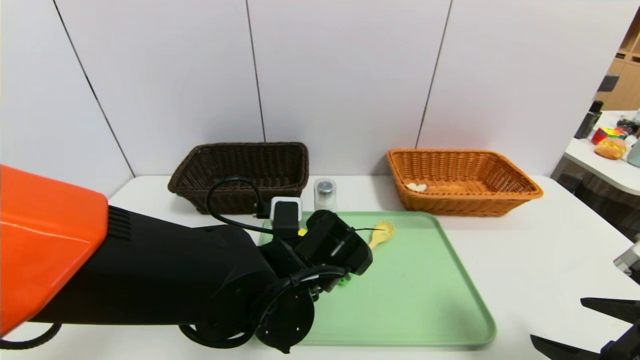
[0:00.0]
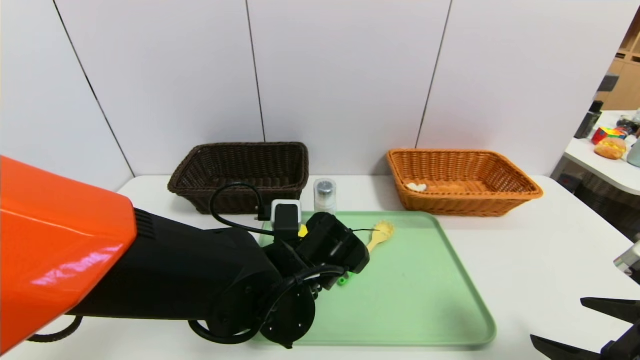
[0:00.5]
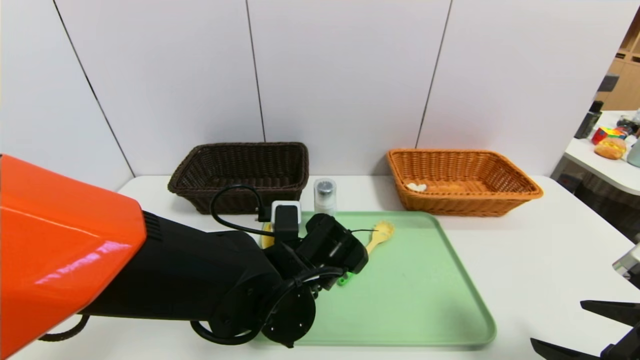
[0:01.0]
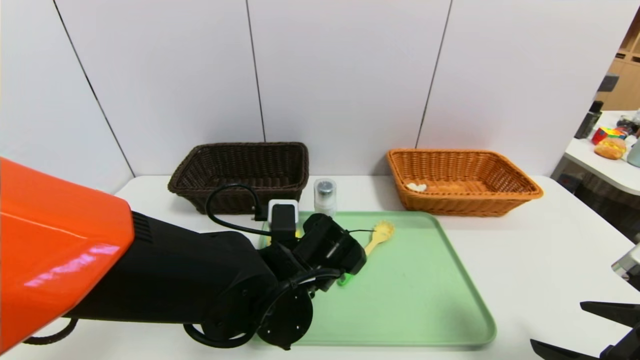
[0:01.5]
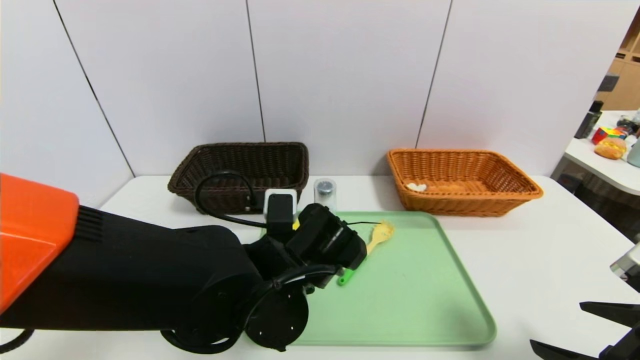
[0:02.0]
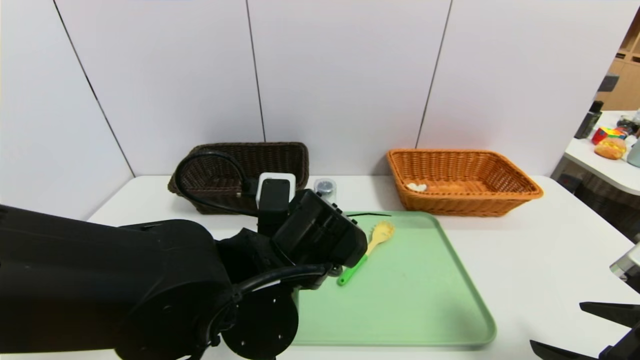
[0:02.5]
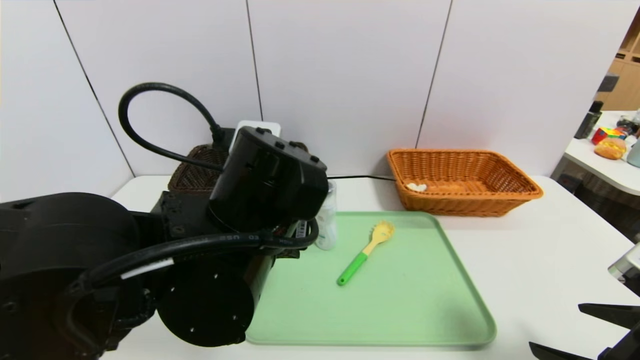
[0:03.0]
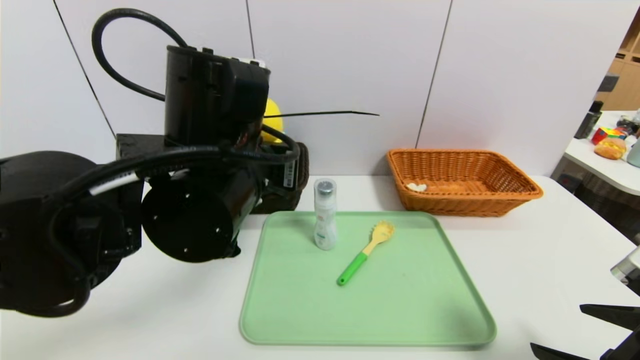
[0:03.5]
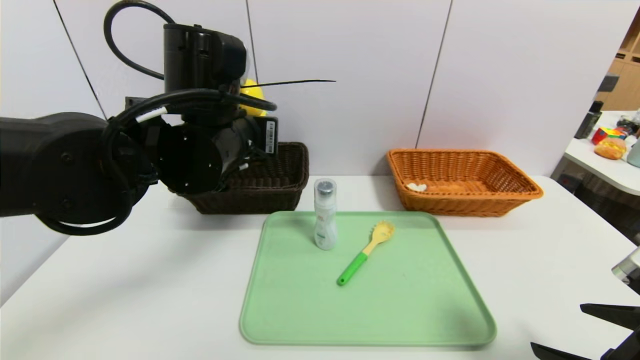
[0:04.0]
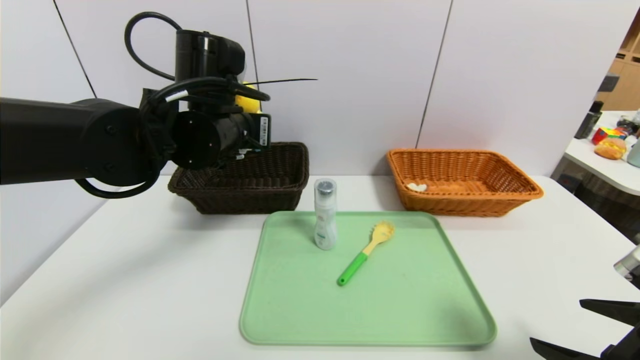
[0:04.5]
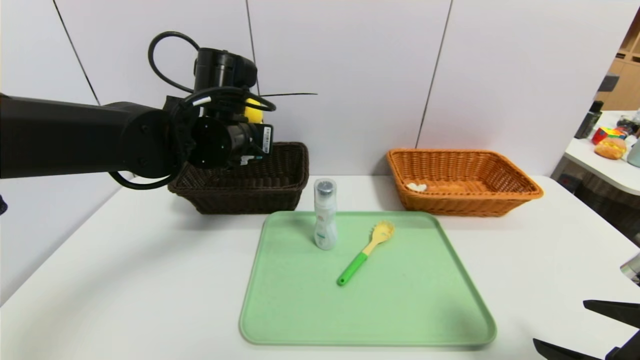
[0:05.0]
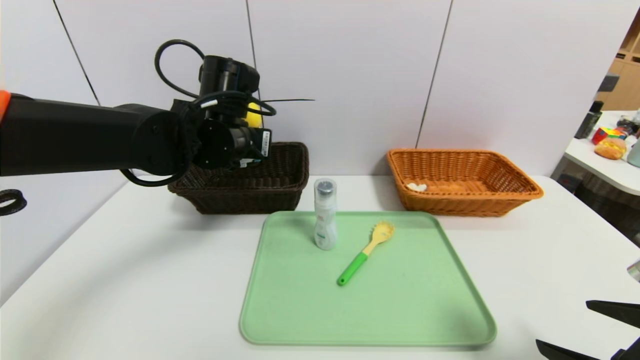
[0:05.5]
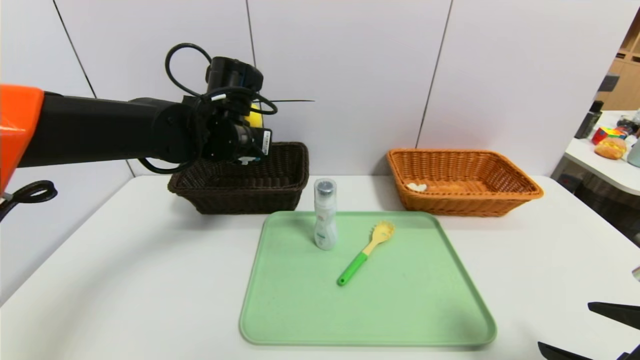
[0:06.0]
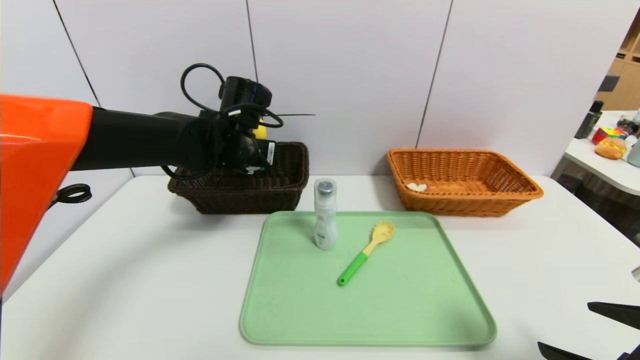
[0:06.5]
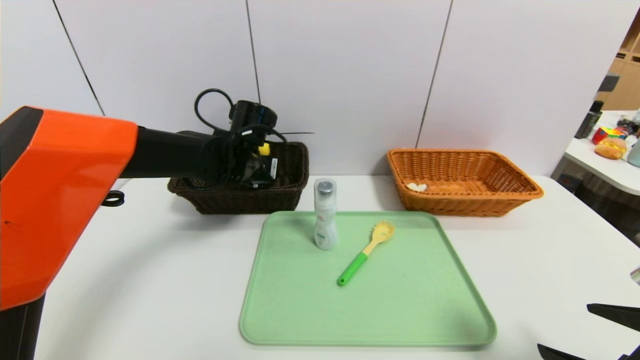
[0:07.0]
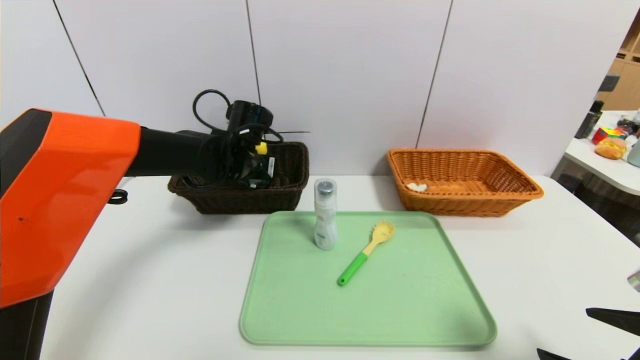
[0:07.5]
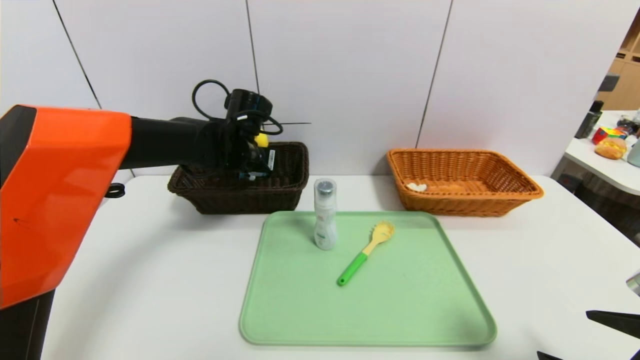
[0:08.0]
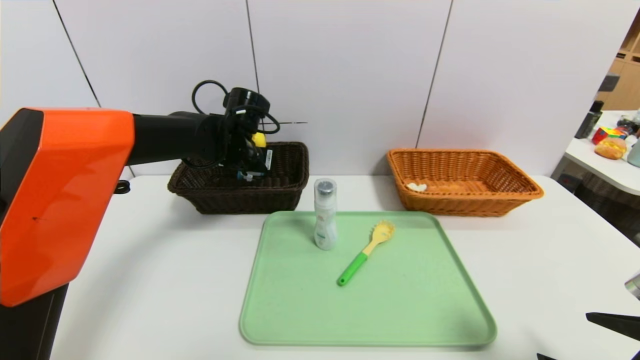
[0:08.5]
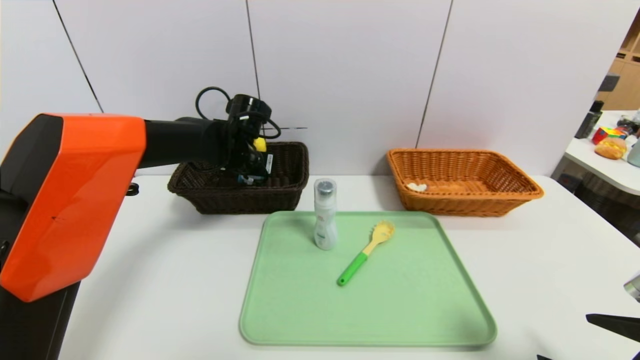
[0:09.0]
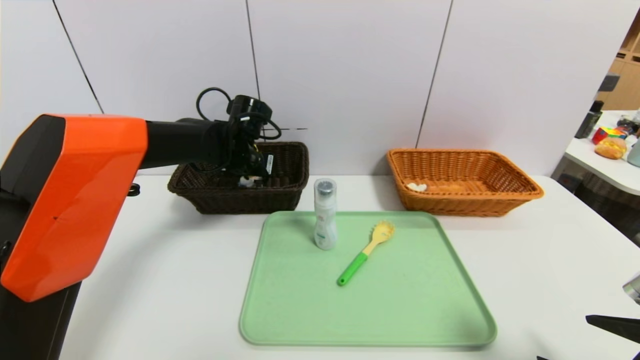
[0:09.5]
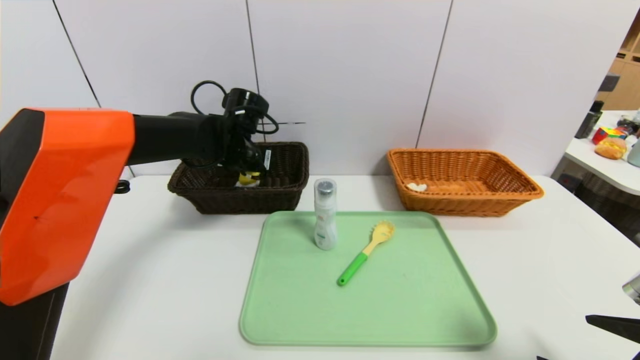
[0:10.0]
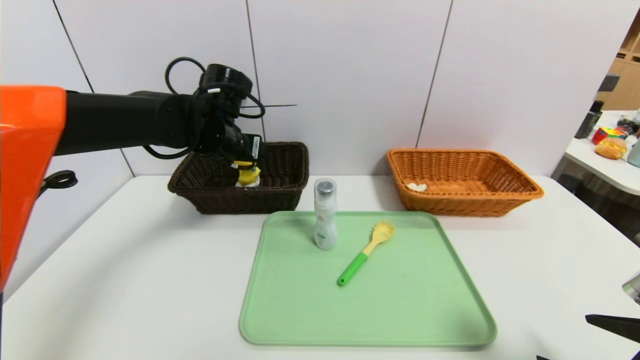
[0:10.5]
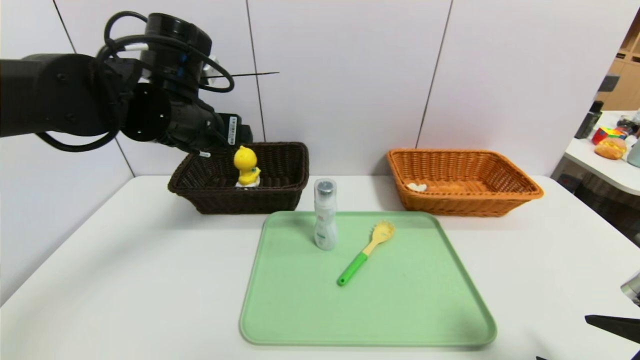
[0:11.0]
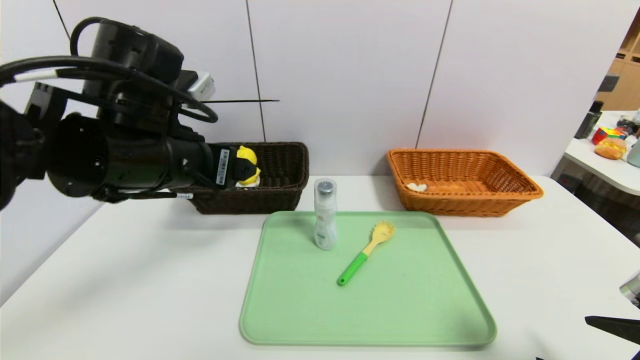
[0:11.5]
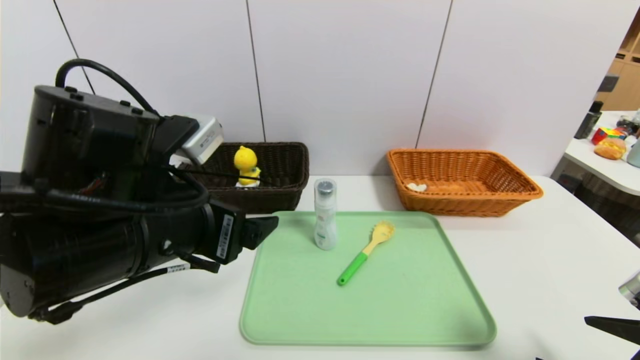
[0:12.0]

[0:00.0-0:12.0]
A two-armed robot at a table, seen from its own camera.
Task of the whole recording: place the food in the right basket with the right gripper, and place the non food items in the left basket with the left gripper.
Step, 0:00.0 to 0:10.0: Grasp the yellow duck and put it in the left basket.
0:00.0 to 0:02.0: The left gripper closes.
0:02.0 to 0:04.0: The left gripper travels upward, to the left and forward by approximately 15 cm.
0:04.0 to 0:06.0: The left gripper is displaced forward by some 10 cm.
0:06.0 to 0:08.0: The left gripper travels forward by approximately 5 cm.
0:08.0 to 0:10.0: The left gripper opens up.
0:10.0 to 0:12.0: The left gripper shifts some 25 cm backward.

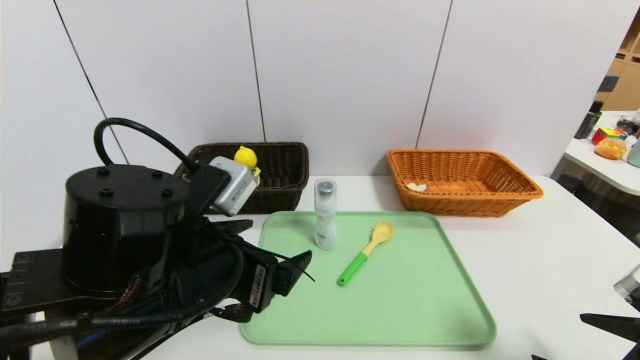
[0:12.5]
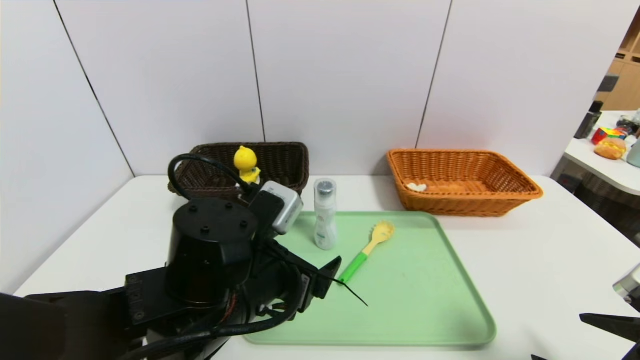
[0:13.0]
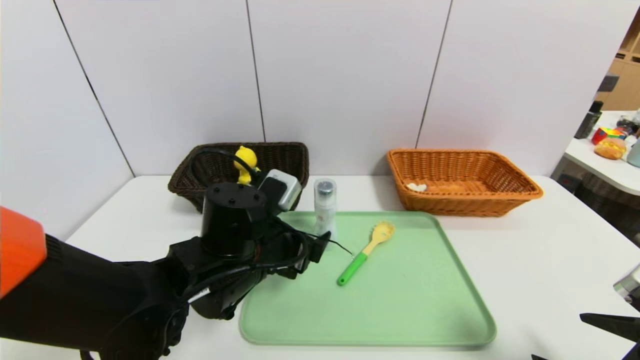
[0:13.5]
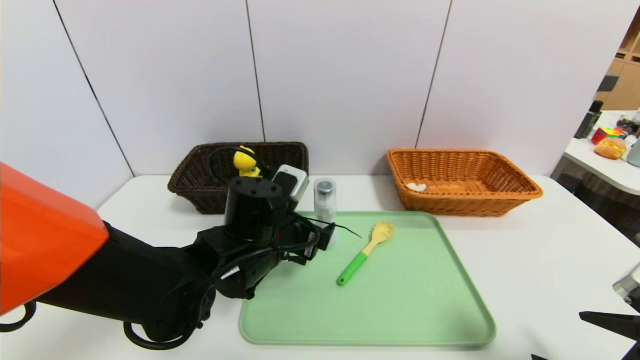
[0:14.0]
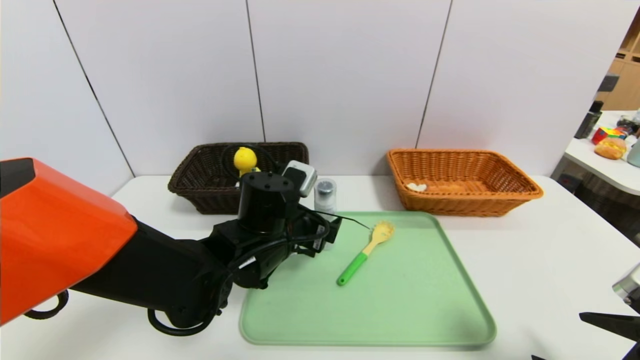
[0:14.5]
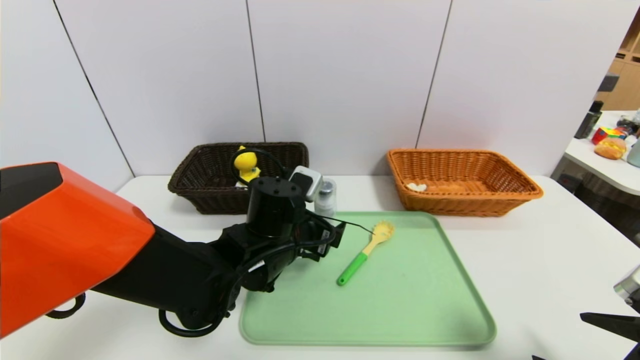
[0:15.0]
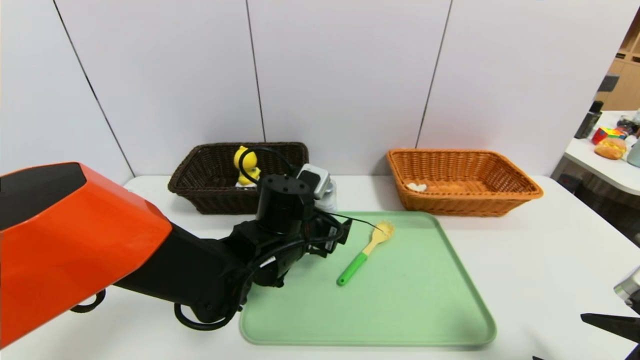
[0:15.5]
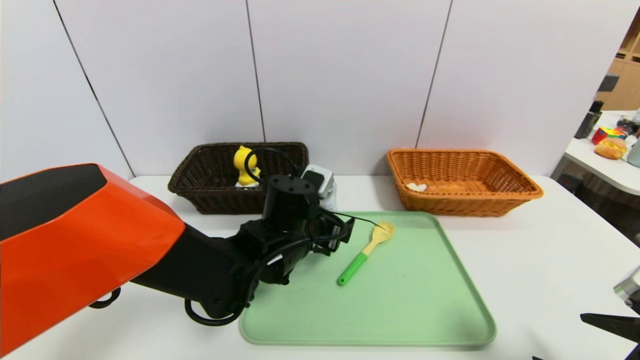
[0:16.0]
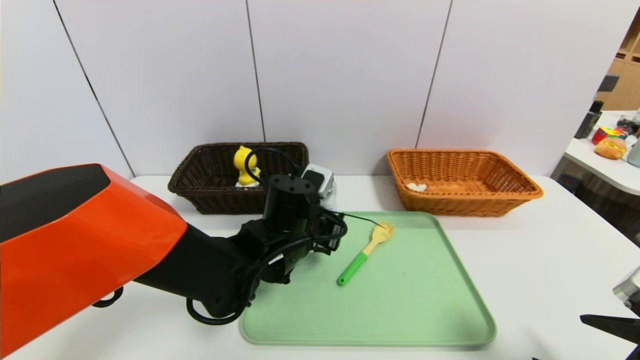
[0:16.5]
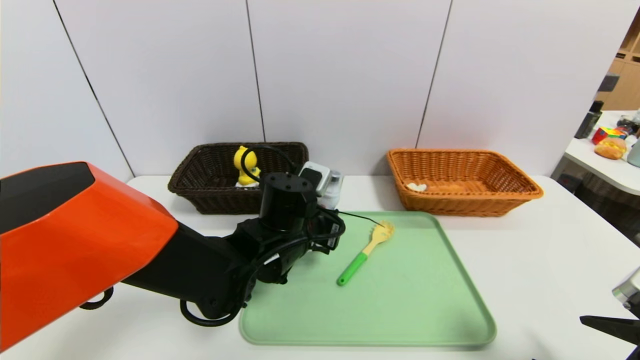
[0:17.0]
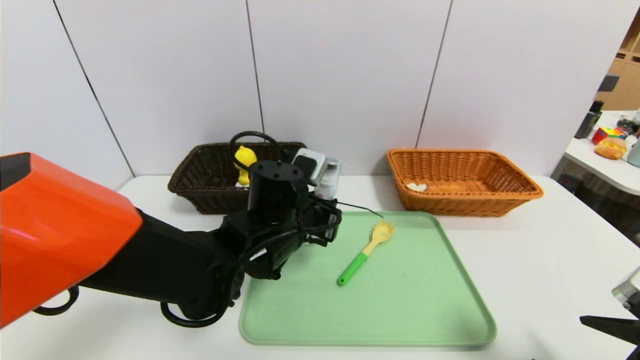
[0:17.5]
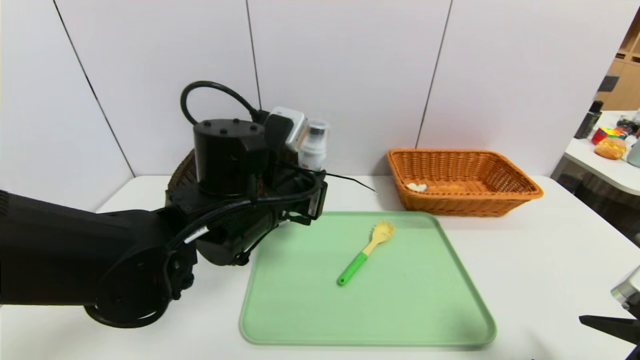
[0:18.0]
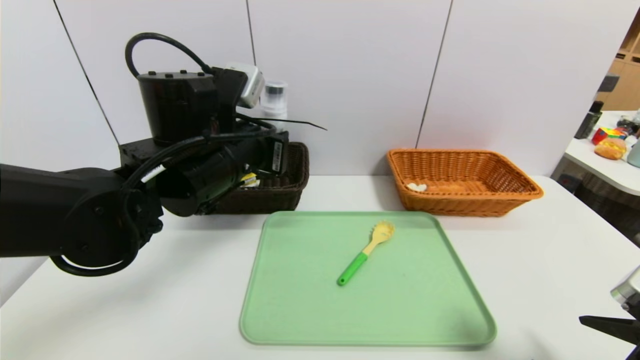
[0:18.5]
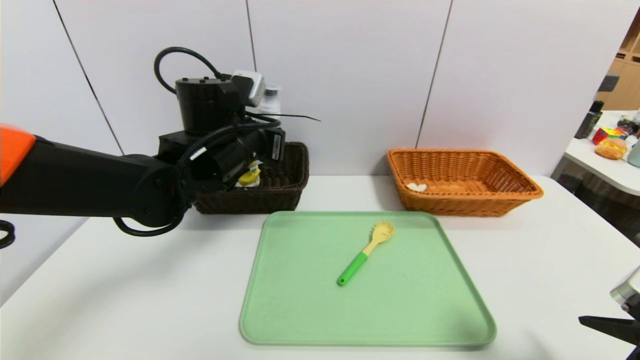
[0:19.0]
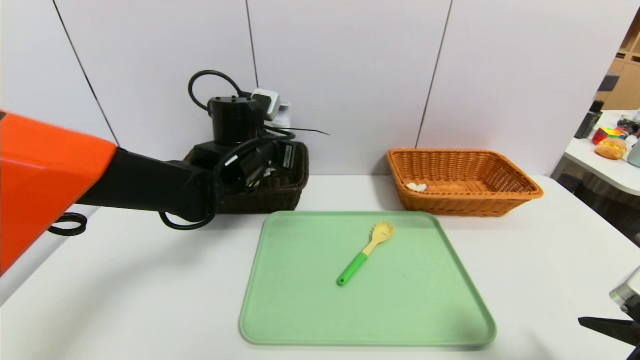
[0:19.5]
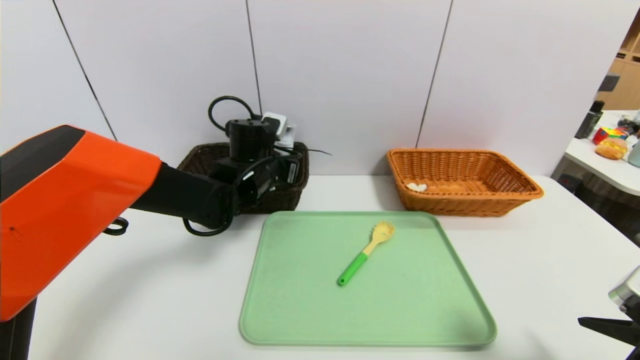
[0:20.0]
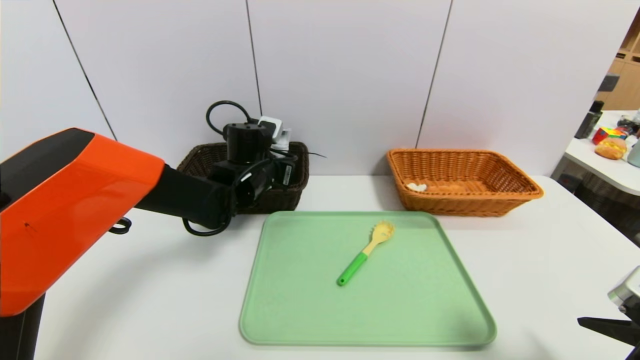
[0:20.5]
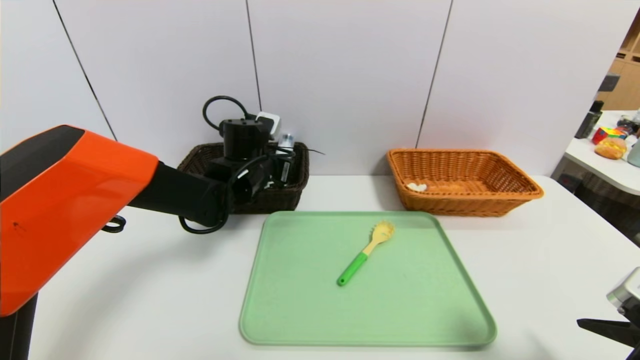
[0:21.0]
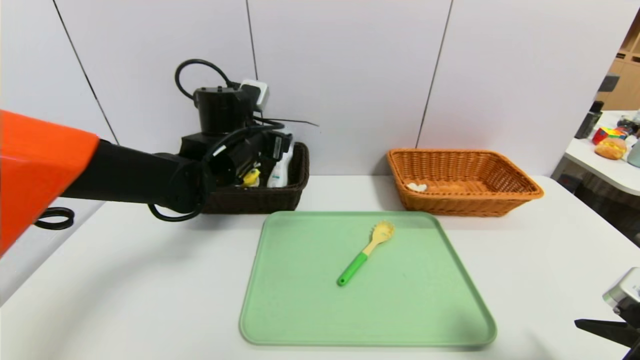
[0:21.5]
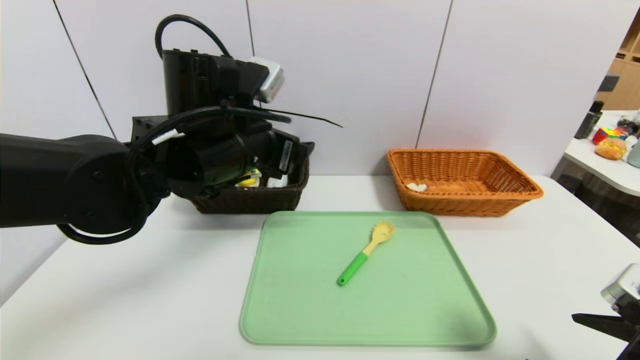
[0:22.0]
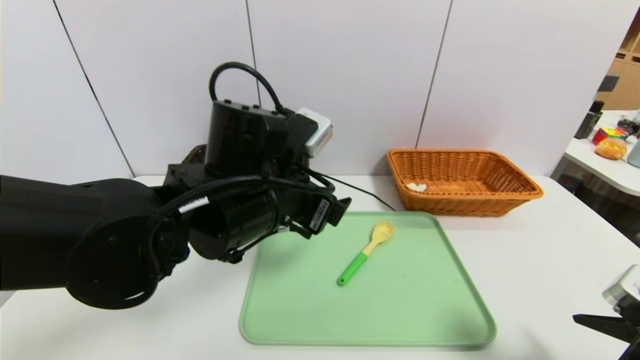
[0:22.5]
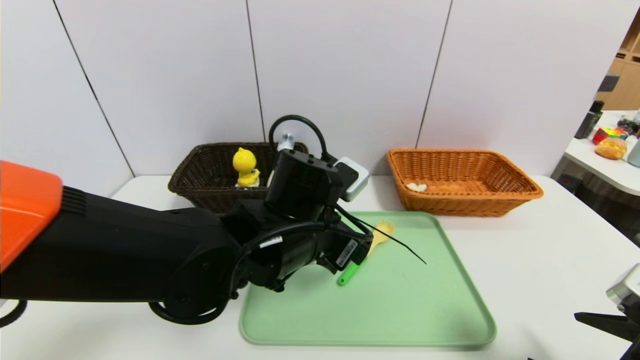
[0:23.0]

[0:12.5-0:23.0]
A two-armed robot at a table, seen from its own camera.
Task of the whole recording: place the food in the right basket with the right gripper, and place the non food items in the left basket with the left gripper.
Step, 0:12.5 to 0:21.5: Grasp the detergent and put it in the left basket.
0:12.5 to 0:14.5: The left gripper moves forward, downward and to the right, some 15 cm.
0:14.5 to 0:16.5: The left gripper closes up.
0:16.5 to 0:19.0: The left gripper goes about 15 cm upward and to the left.
0:19.0 to 0:21.0: The left gripper shifts about 10 cm downward and forward, and opens.
0:21.0 to 0:23.0: The left gripper travels backward and to the right by roughly 20 cm.
